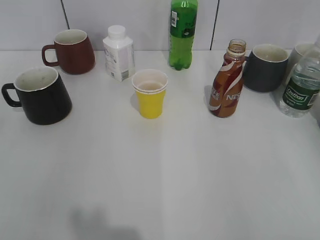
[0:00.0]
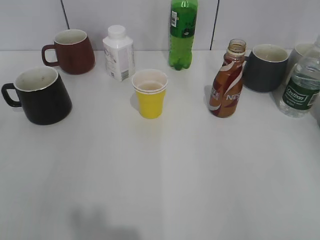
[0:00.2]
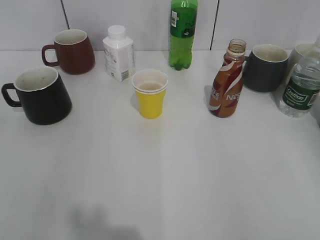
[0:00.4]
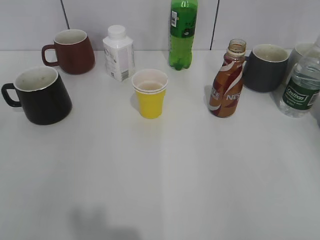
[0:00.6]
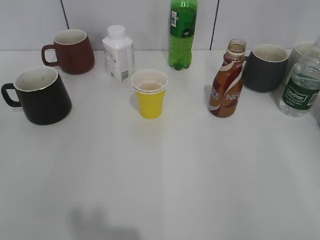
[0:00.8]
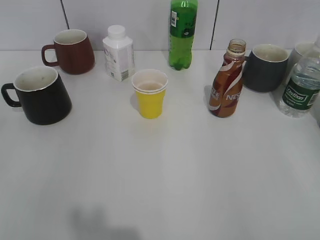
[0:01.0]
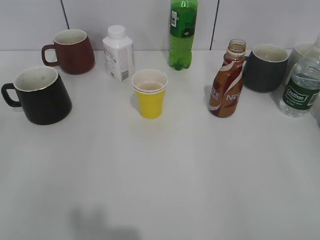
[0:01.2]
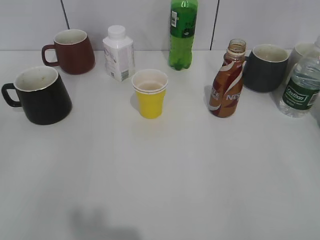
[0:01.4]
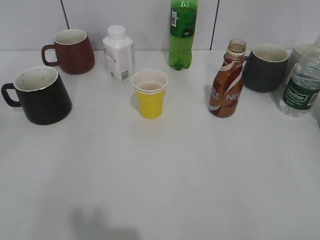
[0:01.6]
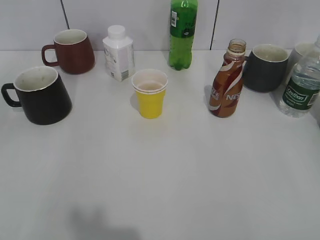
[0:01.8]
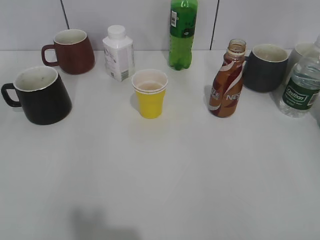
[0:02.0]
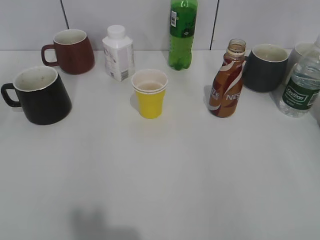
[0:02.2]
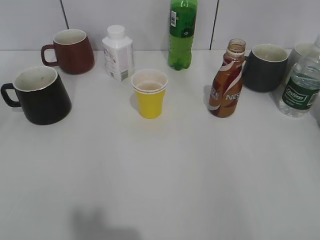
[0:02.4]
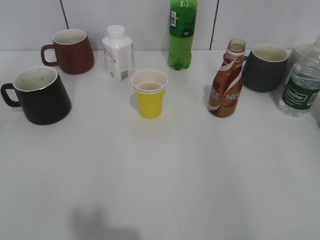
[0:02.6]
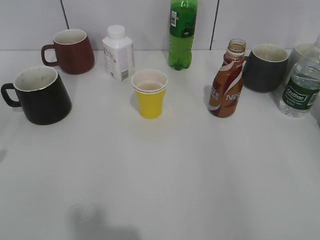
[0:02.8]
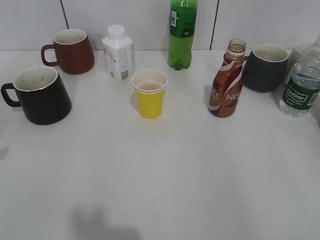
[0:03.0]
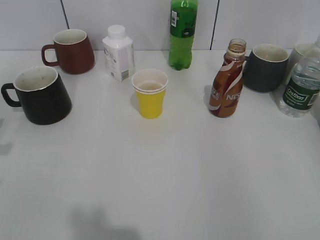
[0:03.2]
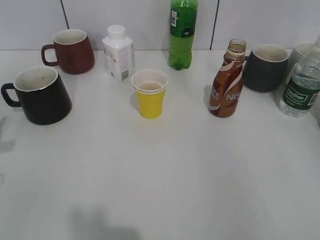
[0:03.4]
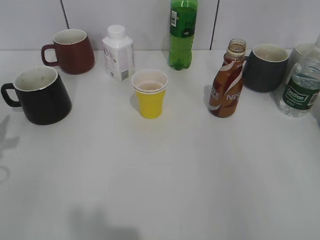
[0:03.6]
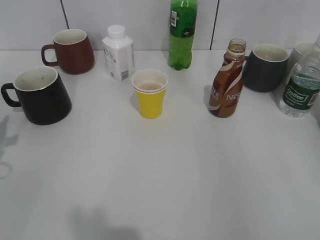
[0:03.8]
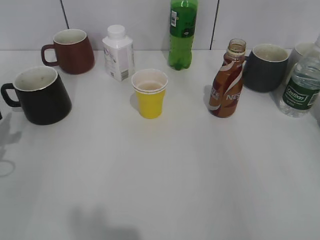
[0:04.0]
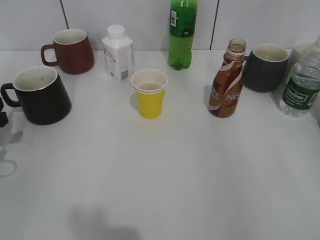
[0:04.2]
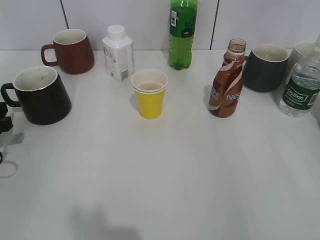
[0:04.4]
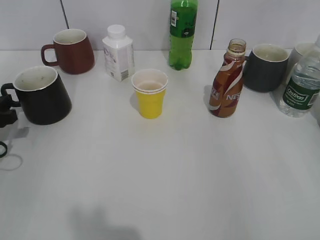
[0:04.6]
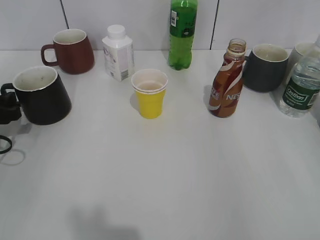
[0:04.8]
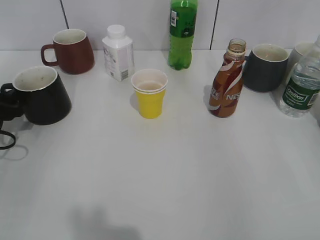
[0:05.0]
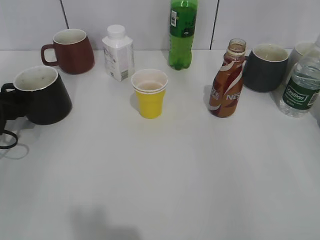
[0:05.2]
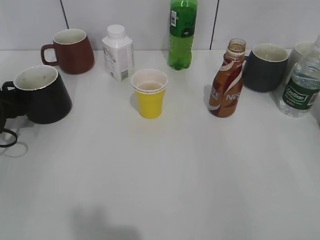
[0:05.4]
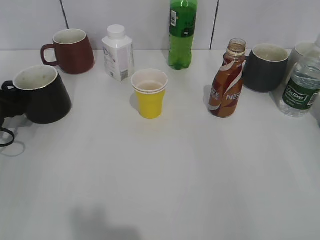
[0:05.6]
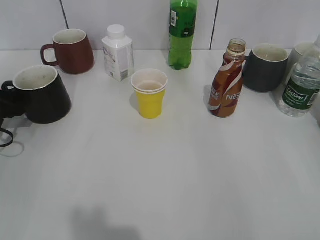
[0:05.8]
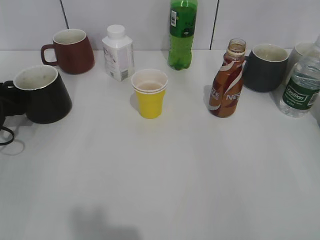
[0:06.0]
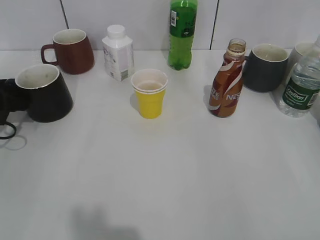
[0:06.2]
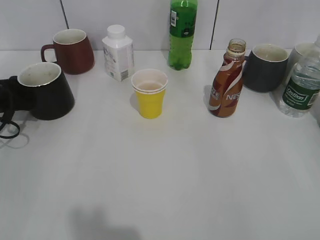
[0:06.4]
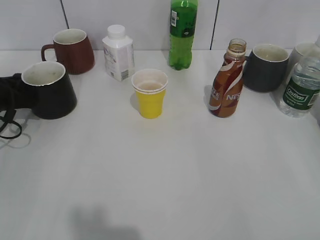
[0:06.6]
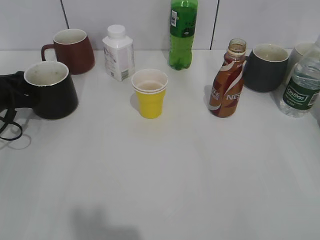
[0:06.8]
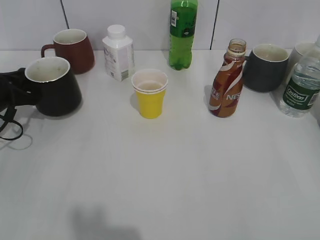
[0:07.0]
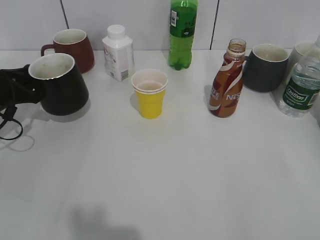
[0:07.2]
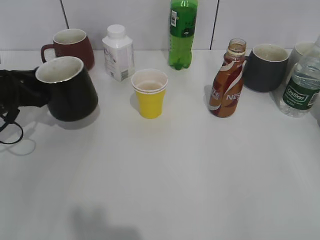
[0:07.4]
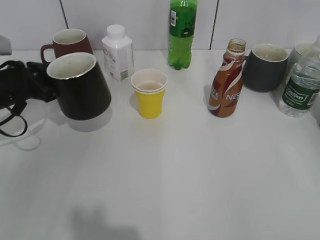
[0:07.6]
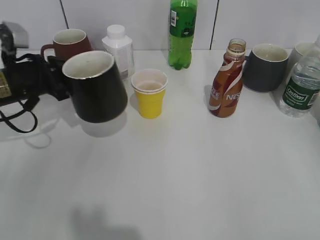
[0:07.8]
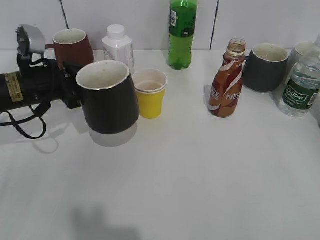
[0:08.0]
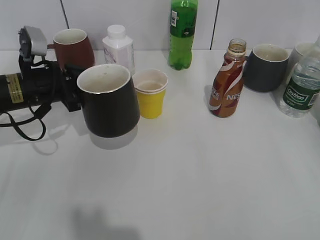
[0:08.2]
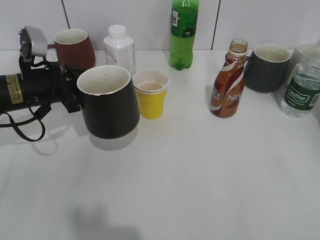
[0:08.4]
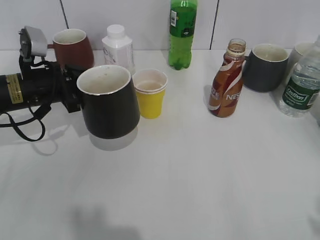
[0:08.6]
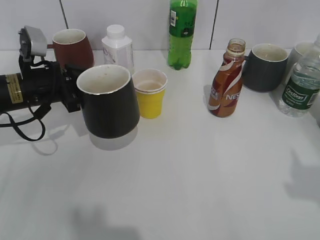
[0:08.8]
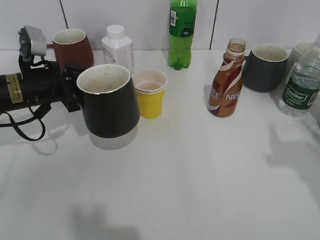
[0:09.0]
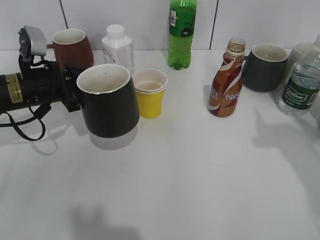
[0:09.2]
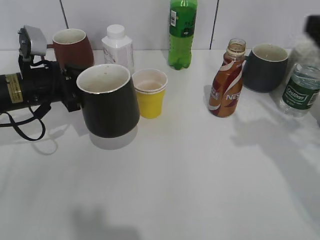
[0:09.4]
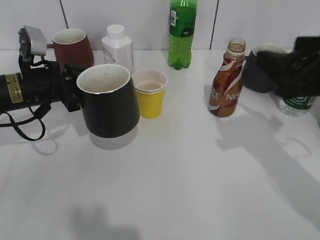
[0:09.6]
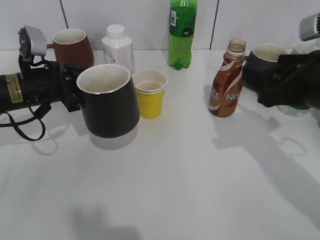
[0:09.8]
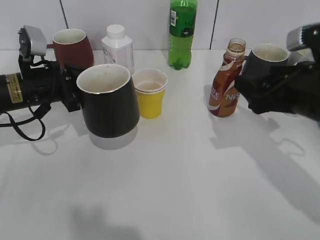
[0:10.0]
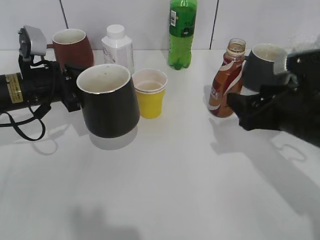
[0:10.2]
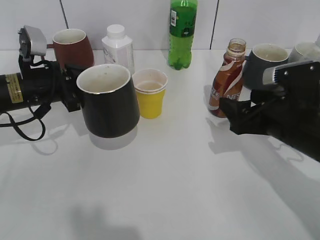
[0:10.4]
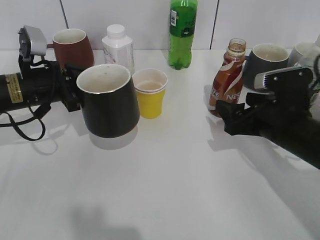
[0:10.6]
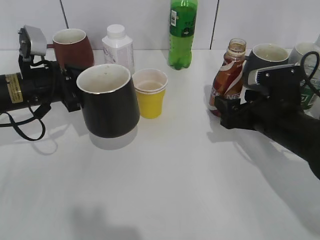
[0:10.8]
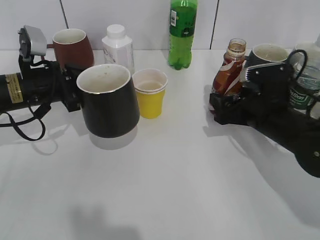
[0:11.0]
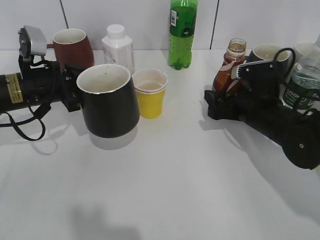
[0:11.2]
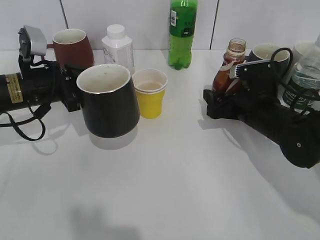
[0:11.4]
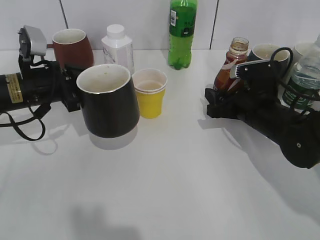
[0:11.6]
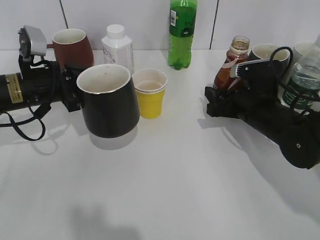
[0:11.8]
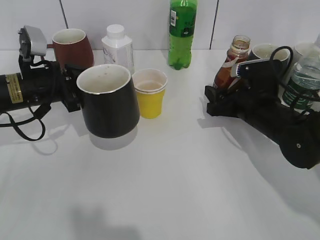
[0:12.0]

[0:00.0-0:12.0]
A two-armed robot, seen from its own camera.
Step, 0:00.8 to 0:06.6: Grasp the black cup with left gripper.
Step, 0:06.8 to 0:07.8: Lift the black cup with left gripper.
Step, 0:08.2 to 0:11.2: Grasp the bottle with coffee with right gripper.
0:03.0 to 0:04.4: The left gripper heads downward and forward, covering some 15 cm.
0:04.4 to 0:06.0: The left gripper shifts some 5 cm forward.
0:06.0 to 0:07.6: The left gripper shifts approximately 5 cm to the right, and closes.
0:07.6 to 0:09.0: The left gripper goes about 5 cm to the right, while the right gripper is displaced forward and upward by some 15 cm.
0:09.0 to 0:10.4: The right gripper travels downward, forward and to the left by about 25 cm, and opens up.
0:10.4 to 0:12.0: The right gripper is displaced forward by some 5 cm, and closes its fingers.

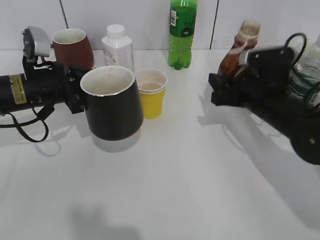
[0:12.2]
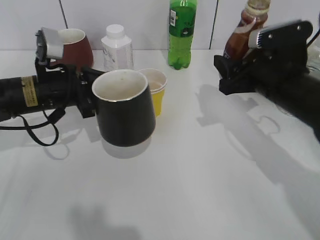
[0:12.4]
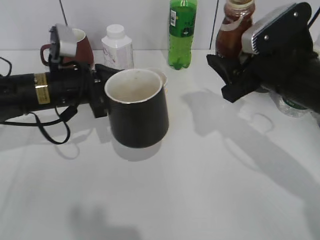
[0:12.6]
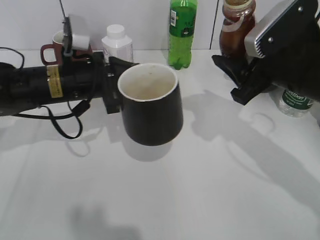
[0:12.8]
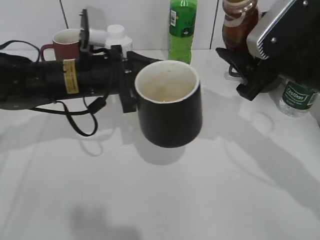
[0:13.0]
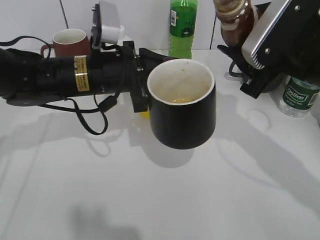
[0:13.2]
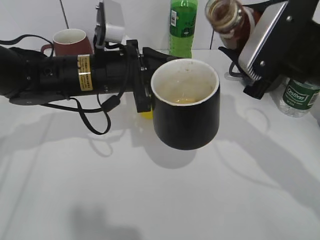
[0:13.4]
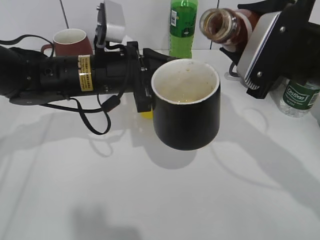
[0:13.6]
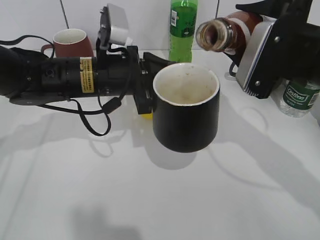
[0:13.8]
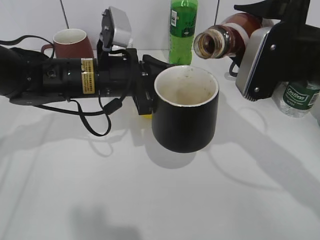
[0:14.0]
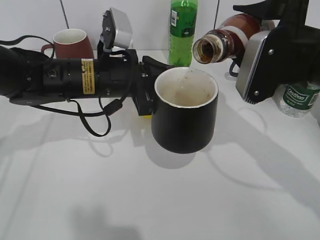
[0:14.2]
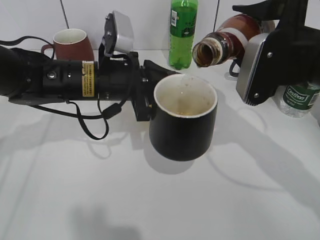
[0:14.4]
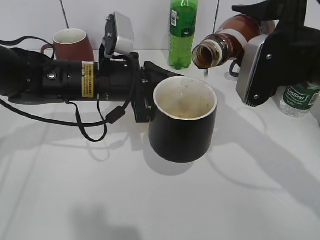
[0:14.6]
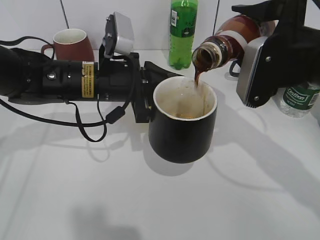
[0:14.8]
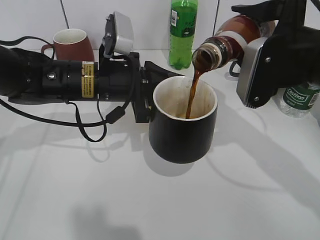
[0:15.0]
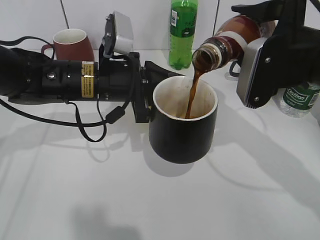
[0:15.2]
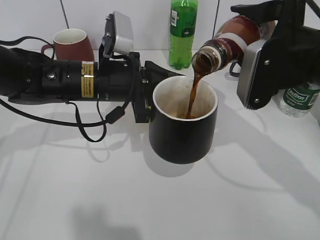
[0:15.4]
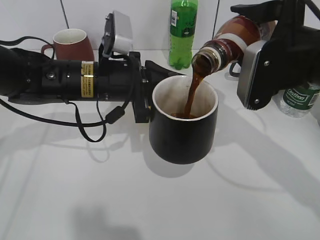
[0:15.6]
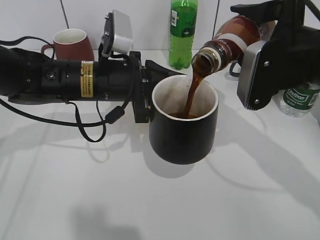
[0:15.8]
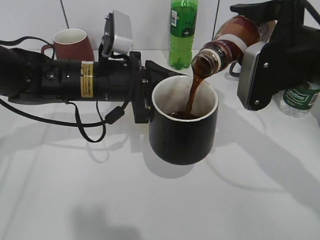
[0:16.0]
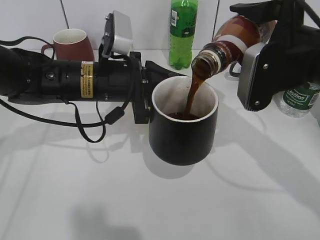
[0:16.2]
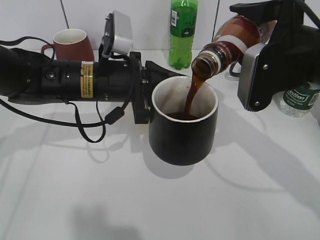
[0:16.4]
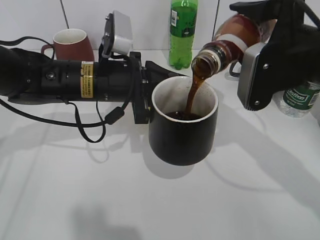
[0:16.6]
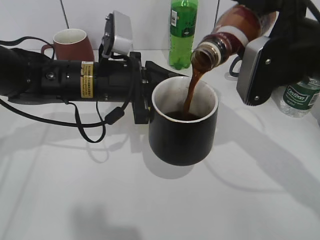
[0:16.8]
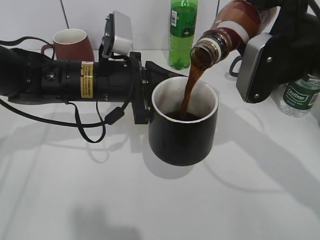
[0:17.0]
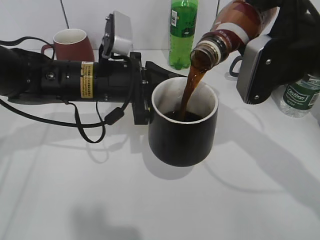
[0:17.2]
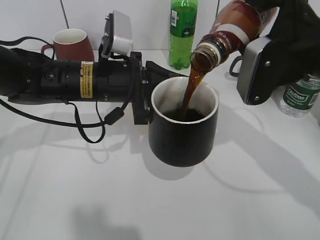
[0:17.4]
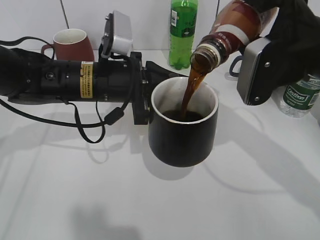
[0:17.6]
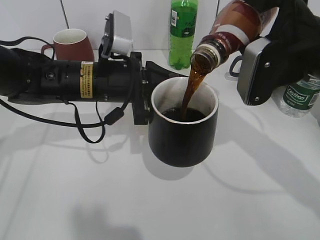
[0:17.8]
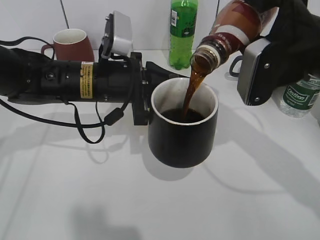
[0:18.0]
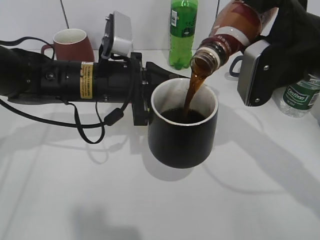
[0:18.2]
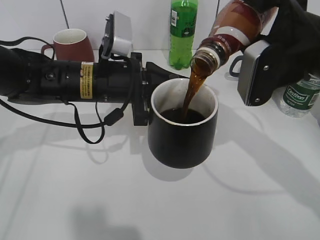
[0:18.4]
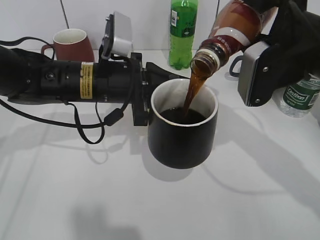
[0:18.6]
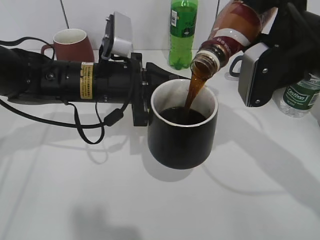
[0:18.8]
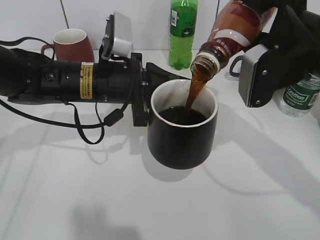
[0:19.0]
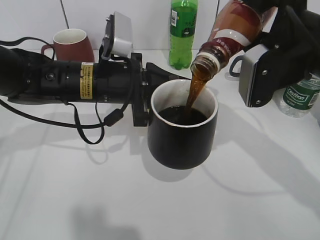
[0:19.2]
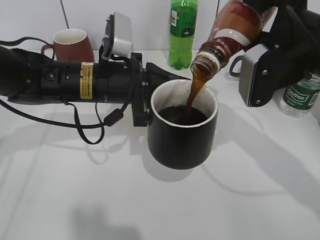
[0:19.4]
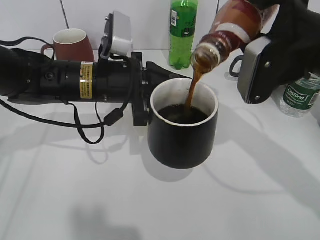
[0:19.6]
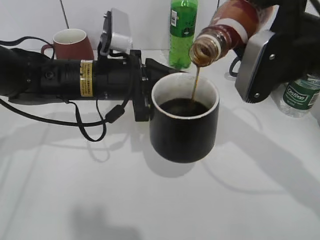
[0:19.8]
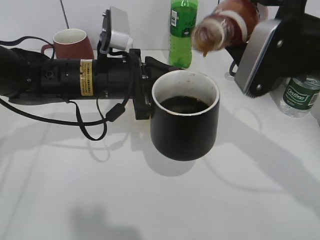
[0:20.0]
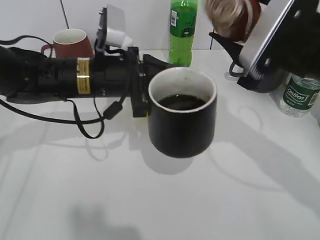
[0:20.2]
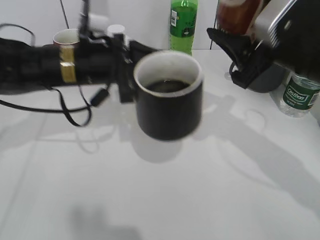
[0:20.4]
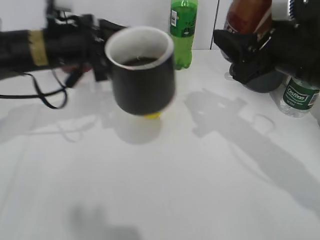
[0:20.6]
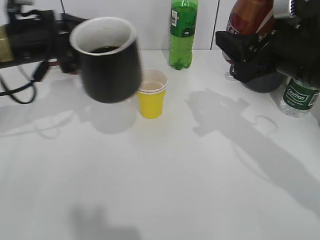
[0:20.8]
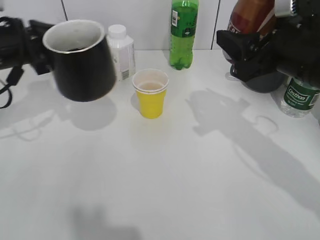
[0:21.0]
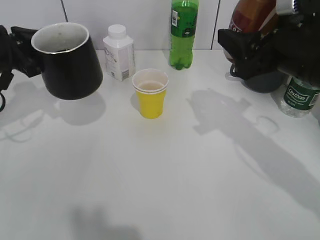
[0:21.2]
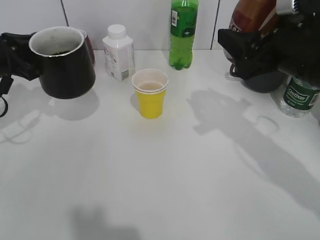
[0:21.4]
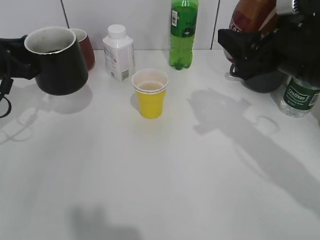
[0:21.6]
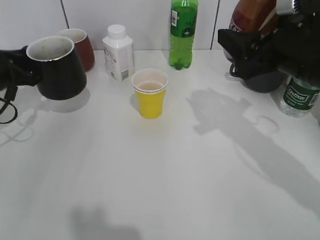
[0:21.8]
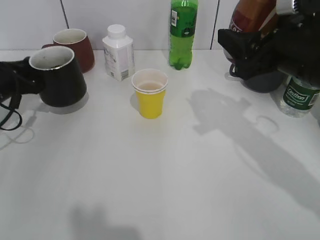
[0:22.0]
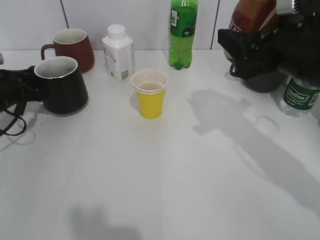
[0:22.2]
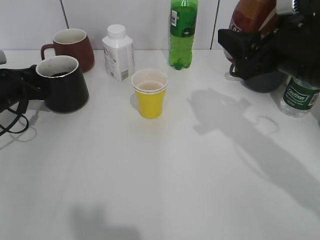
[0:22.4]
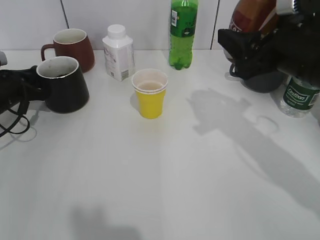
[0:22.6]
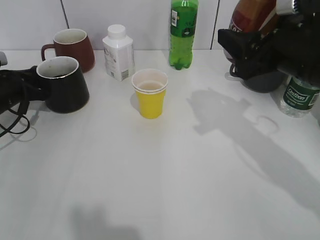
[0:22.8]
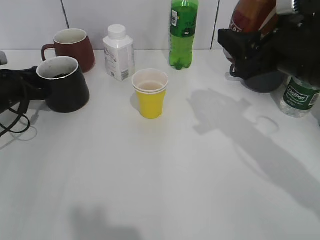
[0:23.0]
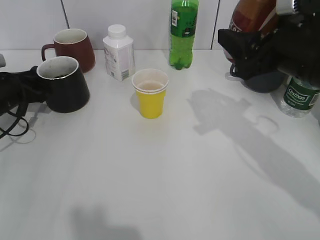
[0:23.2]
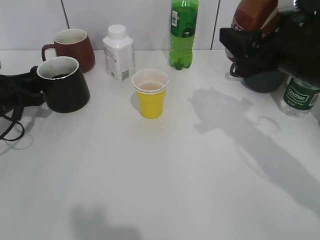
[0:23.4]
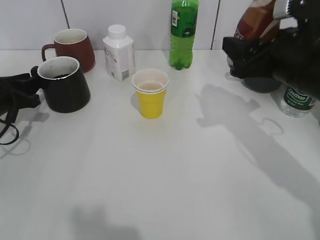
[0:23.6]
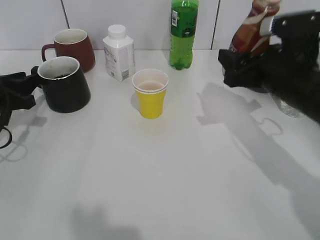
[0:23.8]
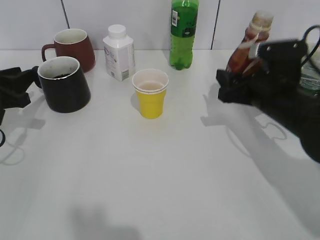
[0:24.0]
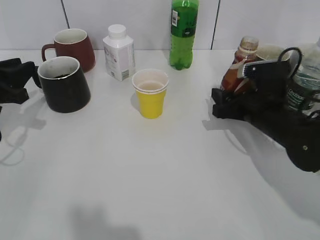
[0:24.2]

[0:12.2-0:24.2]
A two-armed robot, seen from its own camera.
Step, 0:12.2 to 0:19.8: Pour the coffee from bottle to cup with right gripper.
Step, 0:20.2 to 0:23.8: Place the black cup on the table with left gripper.
0:12.2 to 0:13.8: The right gripper travels upward and backward by about 15 cm; the left gripper goes about 10 cm to the right.
0:13.8 to 0:16.6: The grippers move only a little.
0:16.6 to 0:19.8: There are only small adjustments of the grippers.
0:19.8 to 0:21.2: The left gripper goes some 20 cm to the left.
0:21.2 to 0:22.6: The left gripper shifts some 10 cm downward.
0:22.6 to 0:24.2: The left gripper goes some 10 cm backward and upward, and opens up; the right gripper heads downward, covering some 15 cm.
